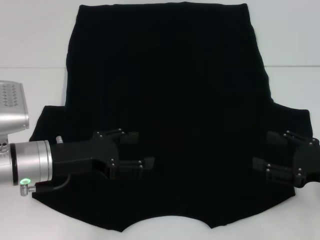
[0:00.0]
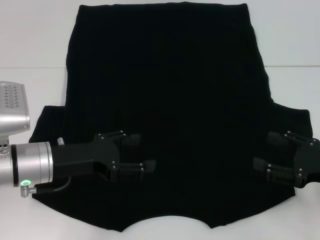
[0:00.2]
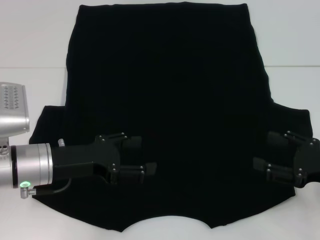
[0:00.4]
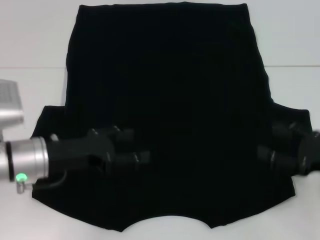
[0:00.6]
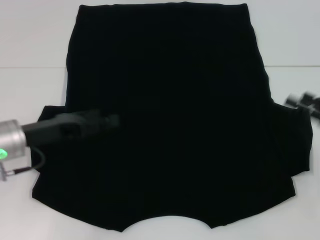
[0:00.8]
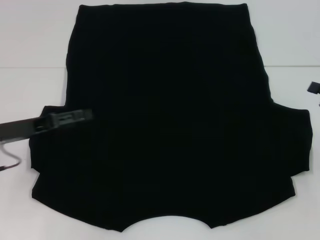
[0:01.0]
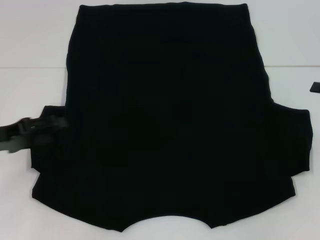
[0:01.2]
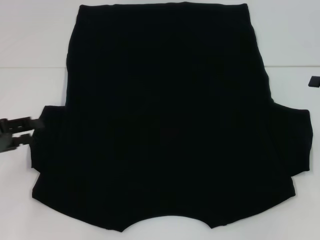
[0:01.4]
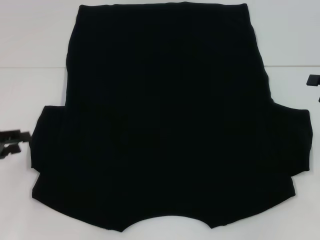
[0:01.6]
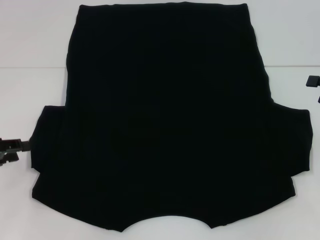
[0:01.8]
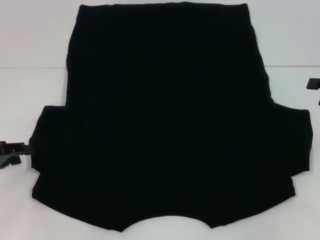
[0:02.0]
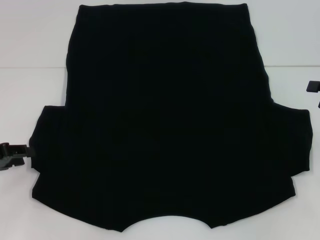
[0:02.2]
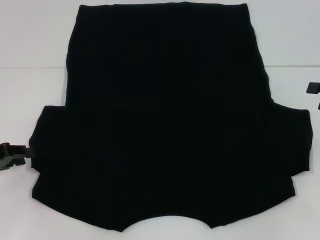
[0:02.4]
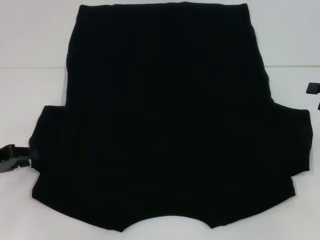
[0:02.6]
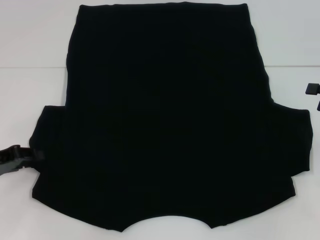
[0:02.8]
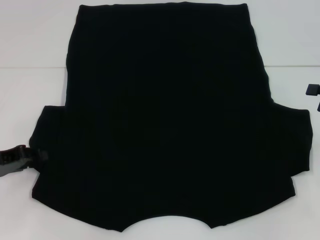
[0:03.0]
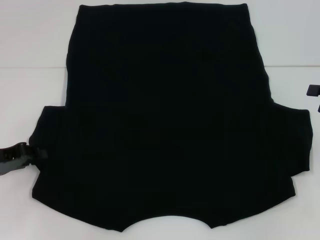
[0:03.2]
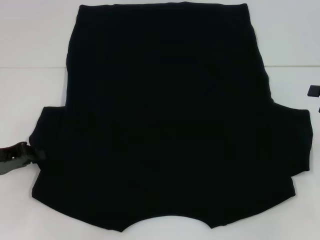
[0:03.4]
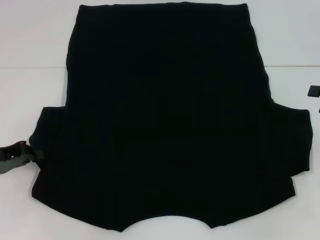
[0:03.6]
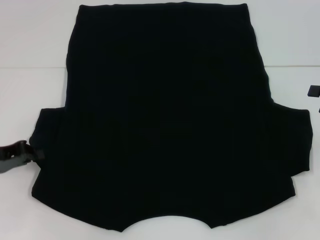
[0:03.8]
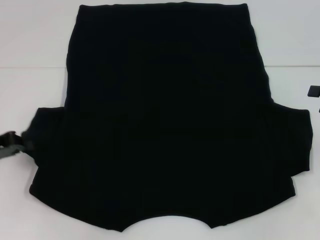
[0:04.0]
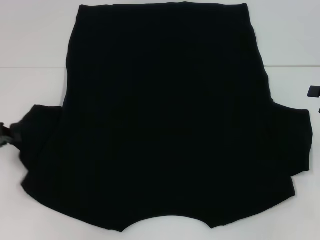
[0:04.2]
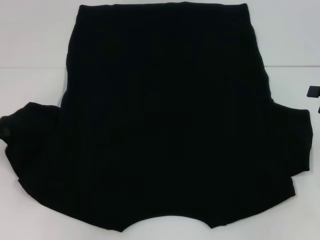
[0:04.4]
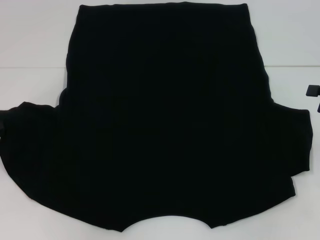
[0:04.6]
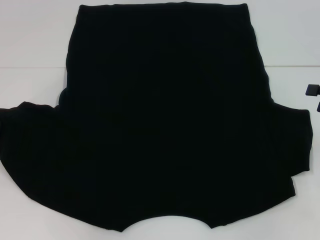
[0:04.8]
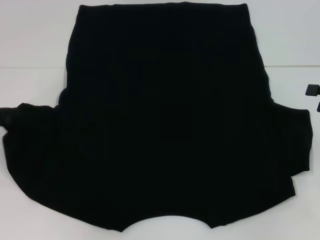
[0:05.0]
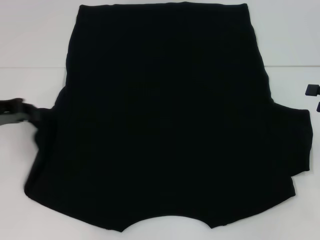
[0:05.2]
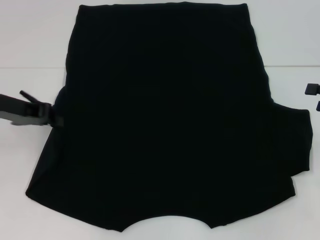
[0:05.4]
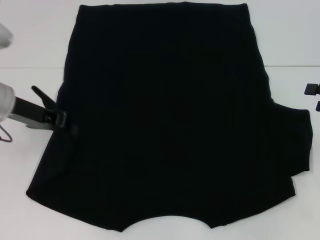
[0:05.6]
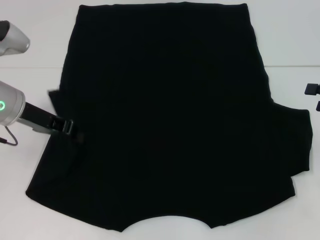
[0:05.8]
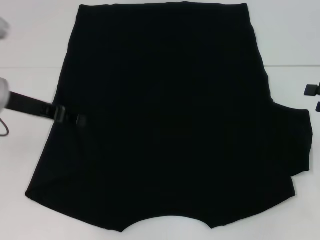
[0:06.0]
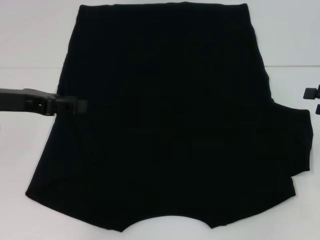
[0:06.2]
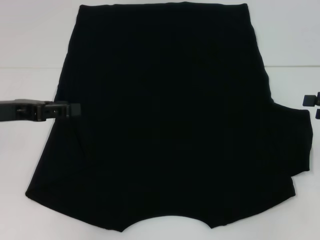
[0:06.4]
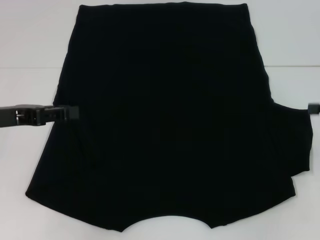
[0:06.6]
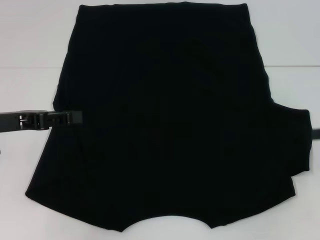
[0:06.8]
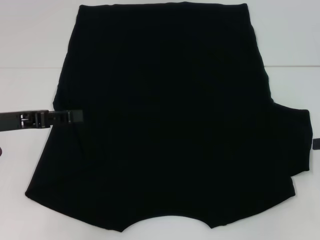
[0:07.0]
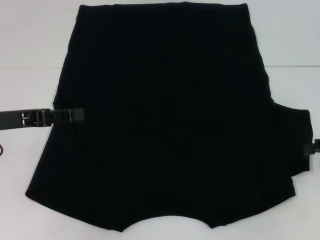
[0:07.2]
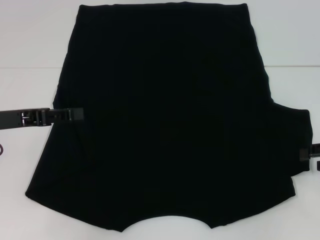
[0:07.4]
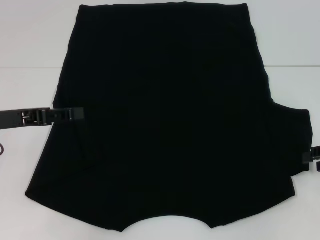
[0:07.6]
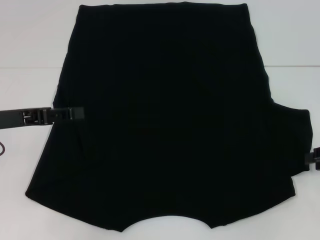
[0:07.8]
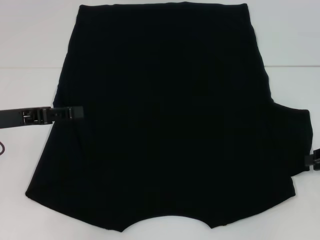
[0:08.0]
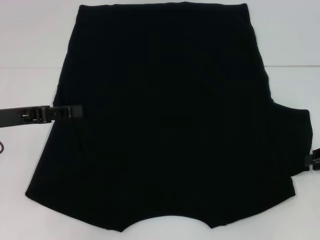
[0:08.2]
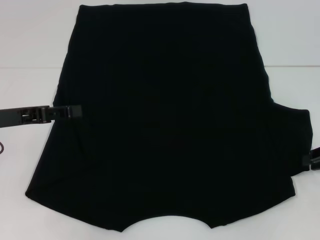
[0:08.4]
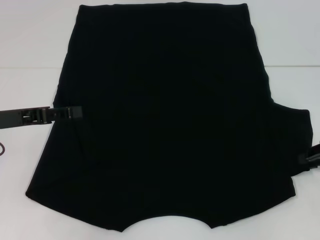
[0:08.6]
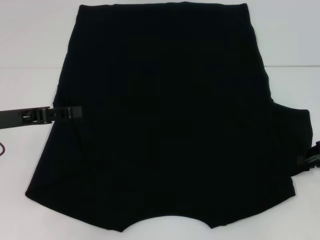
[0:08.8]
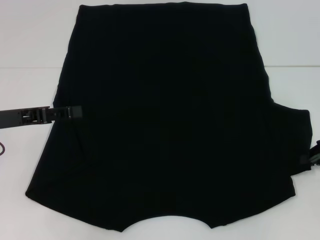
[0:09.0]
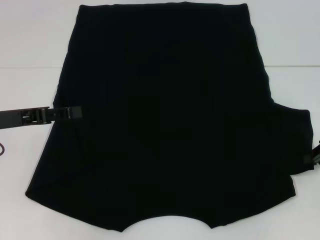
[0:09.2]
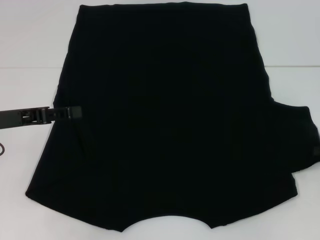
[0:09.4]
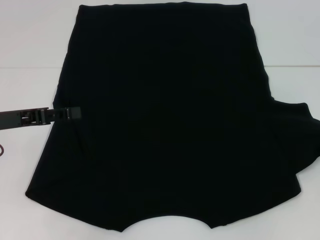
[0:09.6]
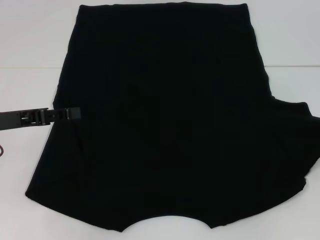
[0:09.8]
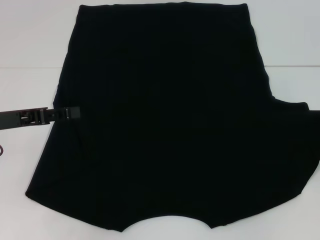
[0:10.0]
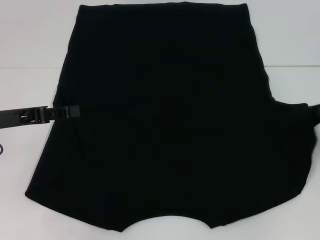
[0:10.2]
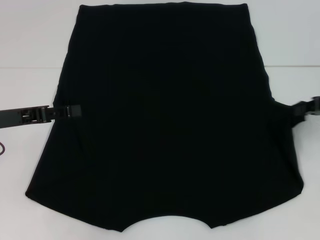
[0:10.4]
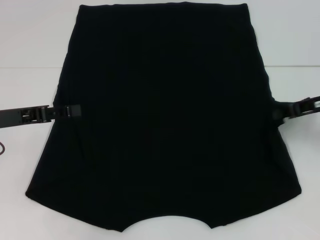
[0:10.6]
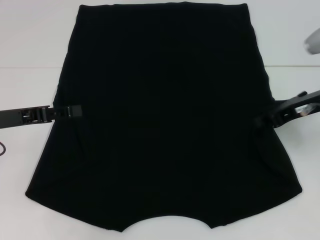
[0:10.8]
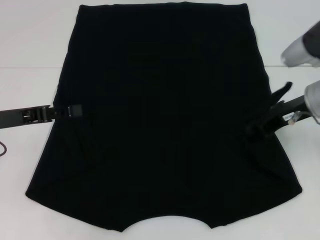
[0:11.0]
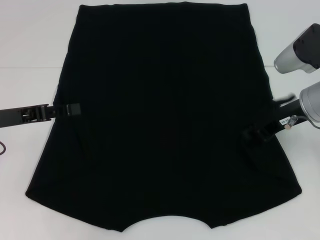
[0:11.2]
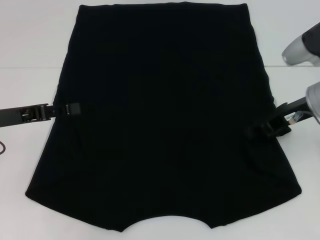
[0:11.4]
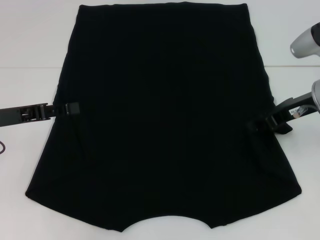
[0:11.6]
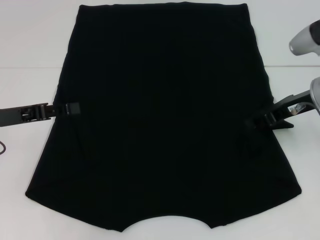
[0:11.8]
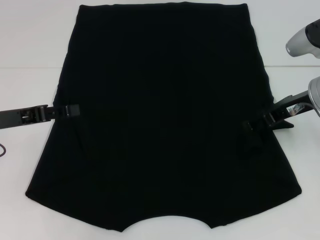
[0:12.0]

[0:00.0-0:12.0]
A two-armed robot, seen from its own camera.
Step, 0:00.0 to 0:07.4: Fold the bottom left sleeve with your left hand.
0:00.0 to 0:01.6: The left gripper is displaced to the left by about 15 cm. Meanwhile the right gripper shifts approximately 15 cm forward, upward and to the right.
0:01.6 to 0:03.0: The grippers stay close to where they were, moving slightly.
0:03.0 to 0:04.4: The left gripper travels upward by roughly 5 cm, and closes.
0:04.4 to 0:06.0: The left gripper is displaced to the right and upward by some 10 cm.
0:06.0 to 0:07.6: The left gripper ends up some 5 cm from where it was.
0:09.0 to 0:10.4: The right gripper moves approximately 5 cm.
0:10.4 to 0:12.0: The right gripper heads to the left, covering about 10 cm, and opens up.

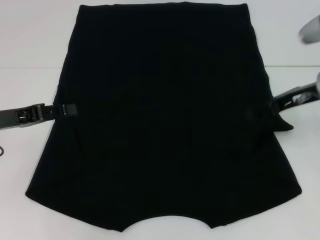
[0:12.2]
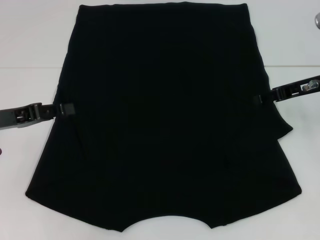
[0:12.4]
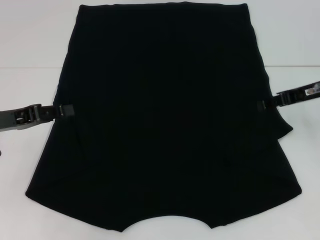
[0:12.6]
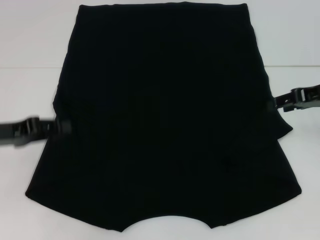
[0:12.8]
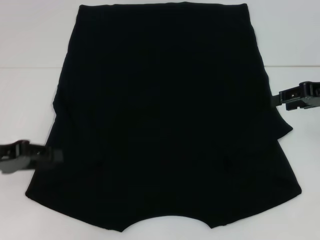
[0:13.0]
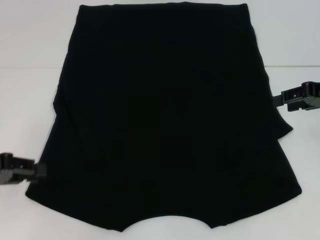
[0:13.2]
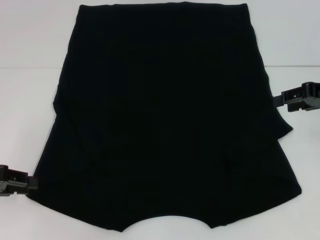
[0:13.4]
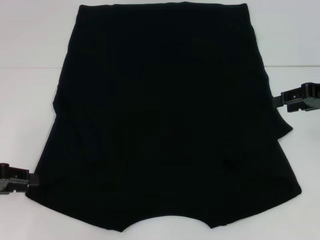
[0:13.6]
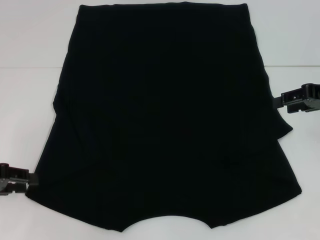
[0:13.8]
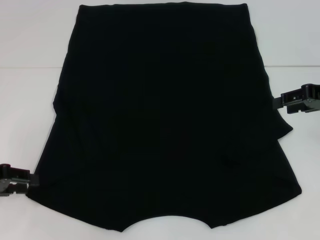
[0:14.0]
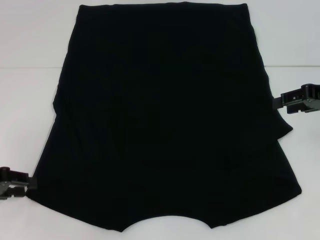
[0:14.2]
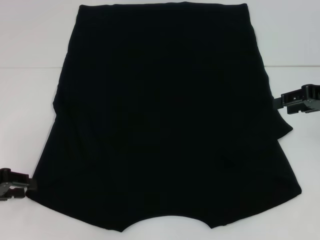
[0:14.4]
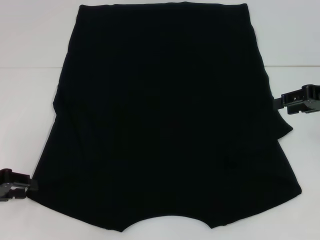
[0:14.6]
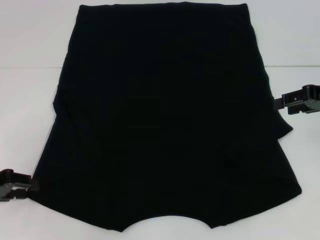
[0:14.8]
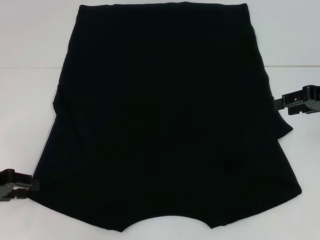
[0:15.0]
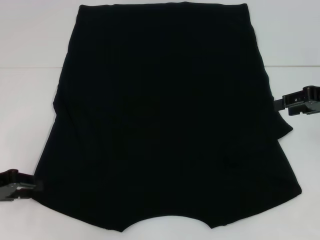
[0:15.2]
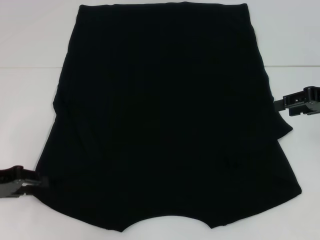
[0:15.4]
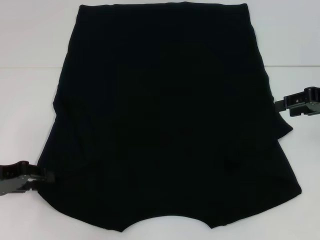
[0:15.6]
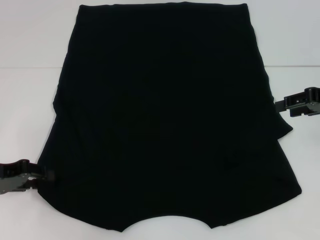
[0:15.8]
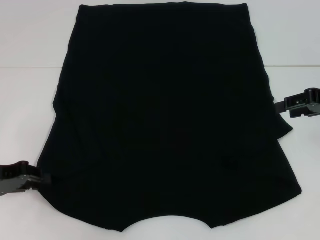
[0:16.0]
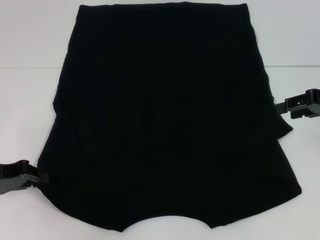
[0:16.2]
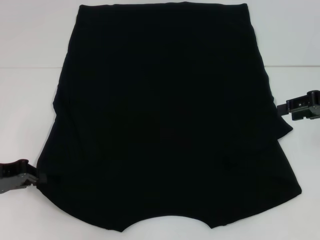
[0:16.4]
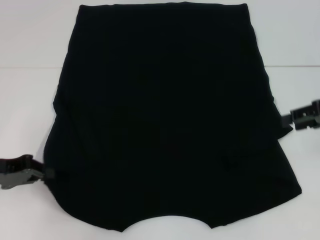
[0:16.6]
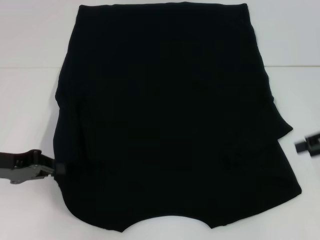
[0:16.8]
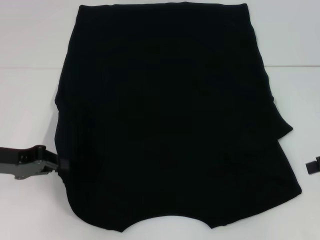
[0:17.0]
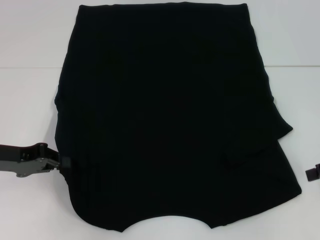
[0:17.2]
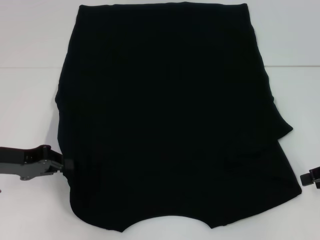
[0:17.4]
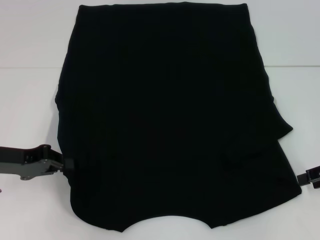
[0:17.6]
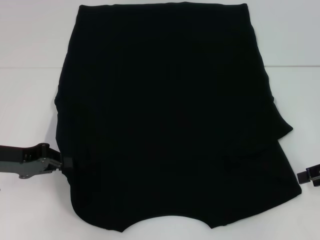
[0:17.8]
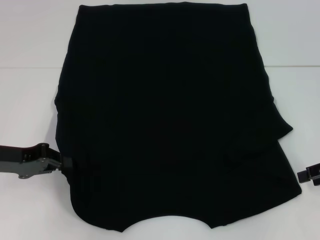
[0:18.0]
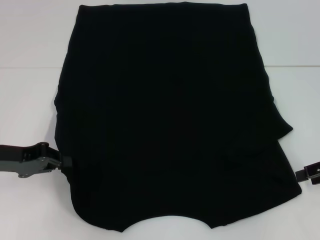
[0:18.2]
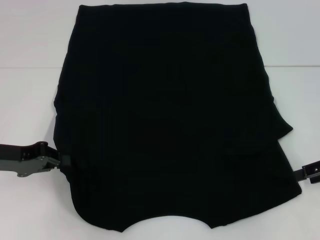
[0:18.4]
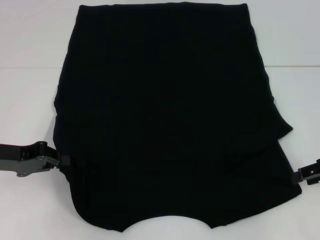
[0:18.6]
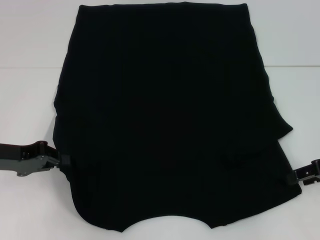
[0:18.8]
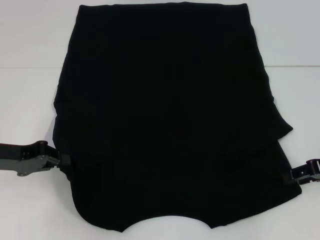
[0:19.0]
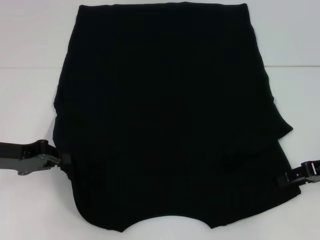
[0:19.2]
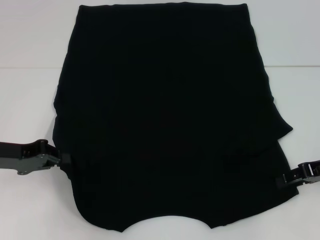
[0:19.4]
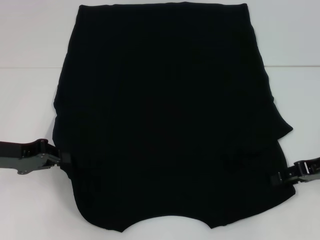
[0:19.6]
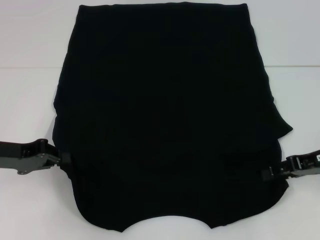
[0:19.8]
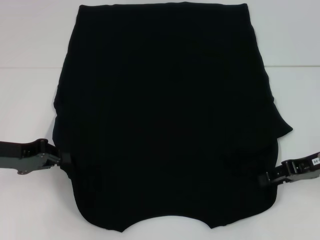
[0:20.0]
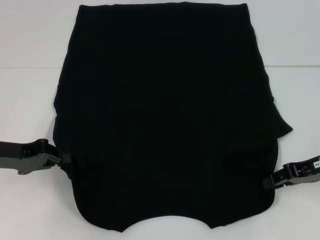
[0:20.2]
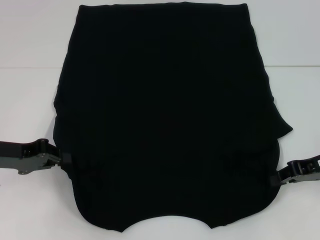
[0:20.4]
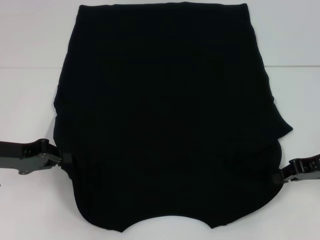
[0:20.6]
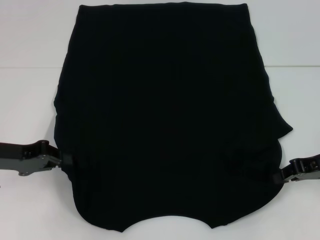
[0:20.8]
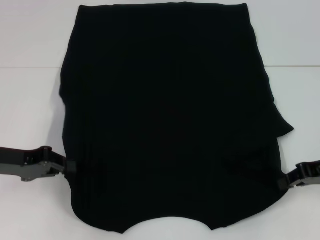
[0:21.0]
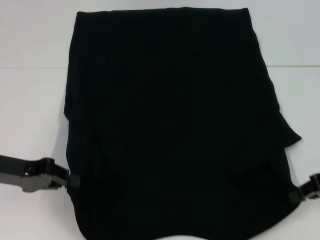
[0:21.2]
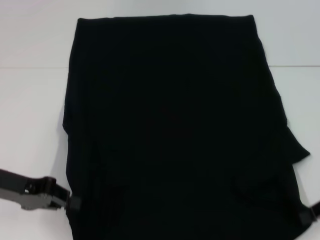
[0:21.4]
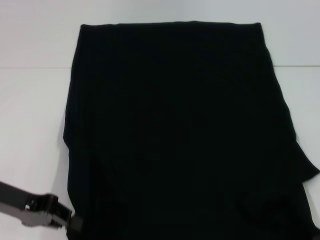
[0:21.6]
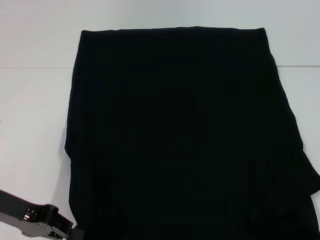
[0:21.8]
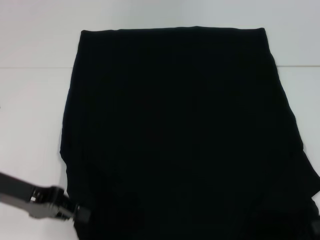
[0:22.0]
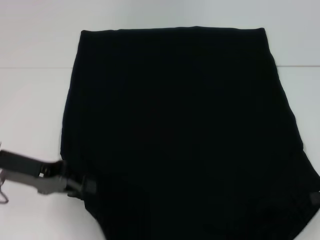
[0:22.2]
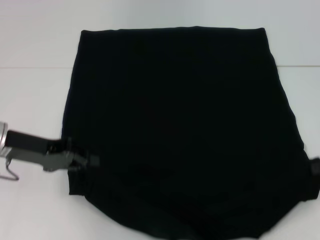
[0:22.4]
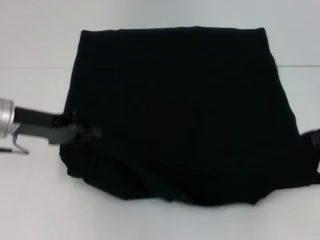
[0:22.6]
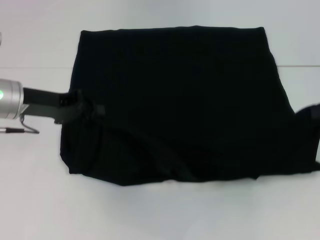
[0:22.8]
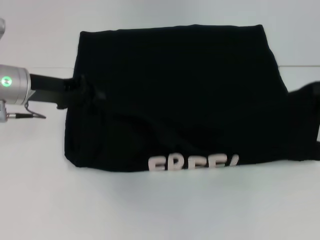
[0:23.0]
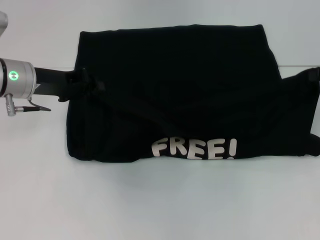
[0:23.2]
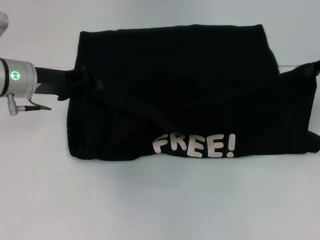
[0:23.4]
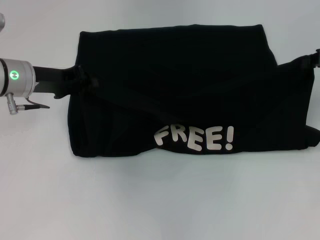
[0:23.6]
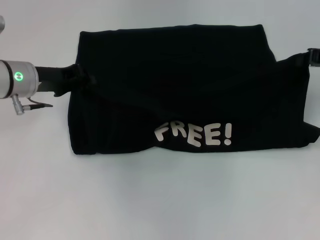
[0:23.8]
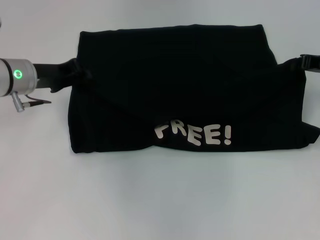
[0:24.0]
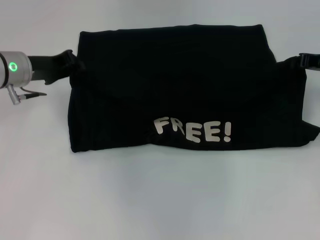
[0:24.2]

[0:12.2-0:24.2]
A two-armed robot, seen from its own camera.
Step, 0:12.6 to 0:16.4: Grab the bottom left corner with your left hand.
Step, 0:16.6 to 0:19.8: Grab the bottom right corner with your right hand.
0:12.2 to 0:13.8: The right gripper shifts about 5 cm to the right. Meanwhile the left gripper shifts by some 5 cm.
0:13.8 to 0:15.2: There are only small adjustments of the grippers.
0:15.2 to 0:16.6: The left gripper closes up.
0:16.6 to 0:18.2: The right gripper changes place by roughly 5 cm.
0:18.2 to 0:19.8: The right gripper moves some 5 cm.
0:19.8 to 0:21.2: The right gripper closes its fingers.
0:21.2 to 0:22.6: The right gripper travels upward by some 5 cm, and goes backward and returns, about 5 cm each way; the left gripper is displaced forward by approximately 5 cm.
0:22.6 to 0:24.2: The left gripper shifts some 5 cm forward. The right gripper travels forward and to the left by about 10 cm.
